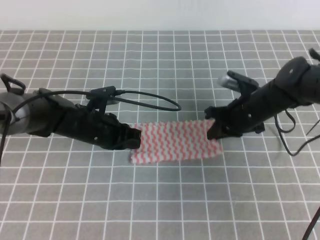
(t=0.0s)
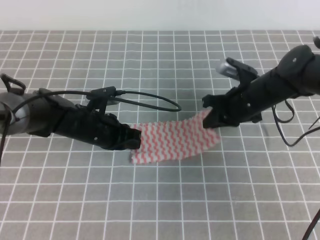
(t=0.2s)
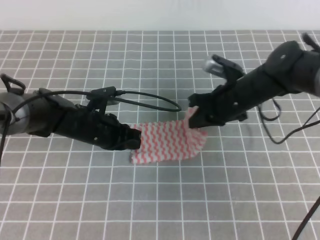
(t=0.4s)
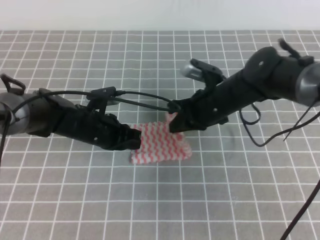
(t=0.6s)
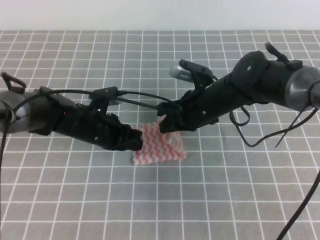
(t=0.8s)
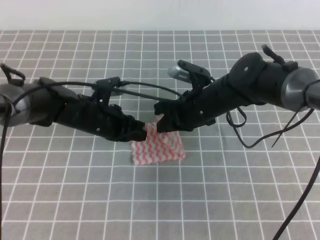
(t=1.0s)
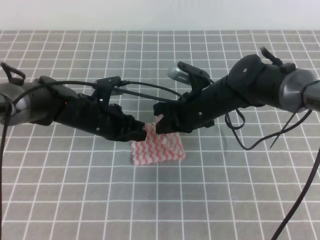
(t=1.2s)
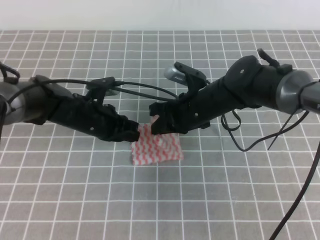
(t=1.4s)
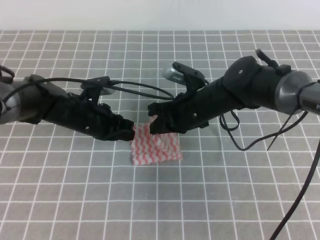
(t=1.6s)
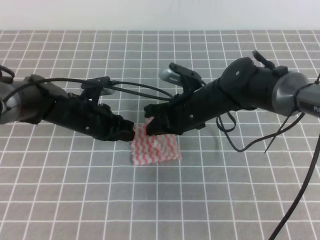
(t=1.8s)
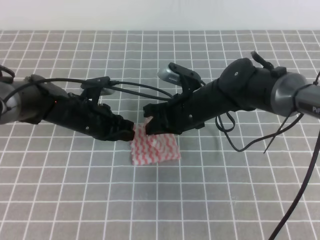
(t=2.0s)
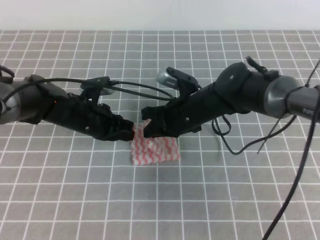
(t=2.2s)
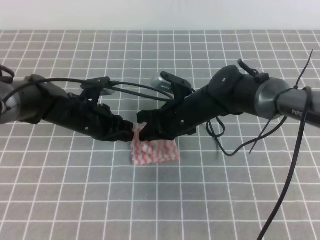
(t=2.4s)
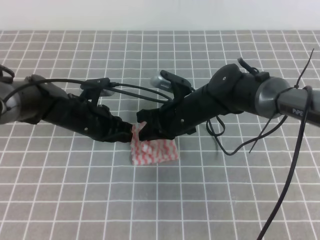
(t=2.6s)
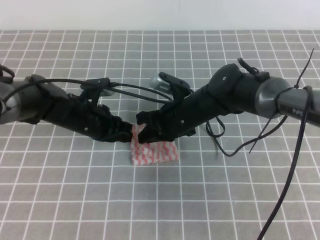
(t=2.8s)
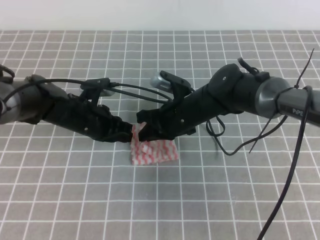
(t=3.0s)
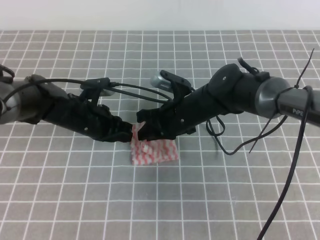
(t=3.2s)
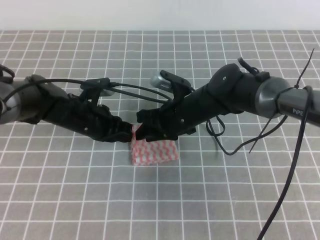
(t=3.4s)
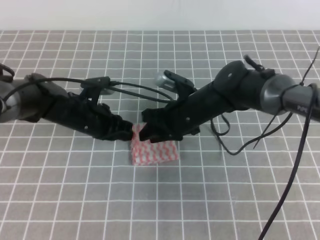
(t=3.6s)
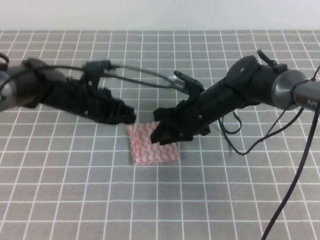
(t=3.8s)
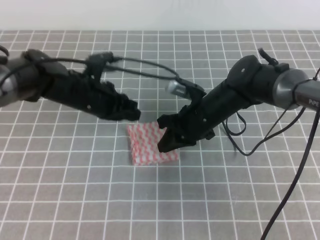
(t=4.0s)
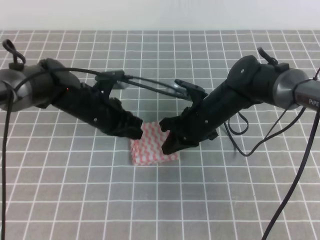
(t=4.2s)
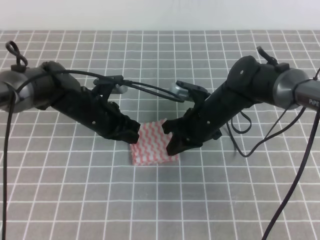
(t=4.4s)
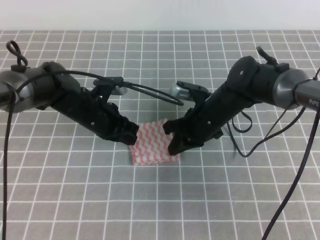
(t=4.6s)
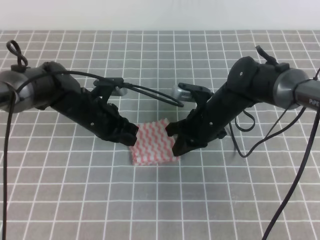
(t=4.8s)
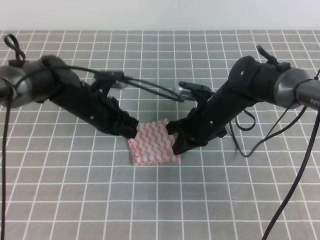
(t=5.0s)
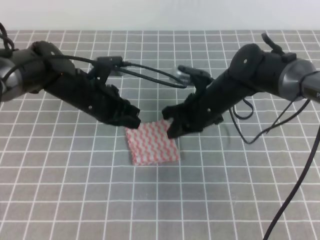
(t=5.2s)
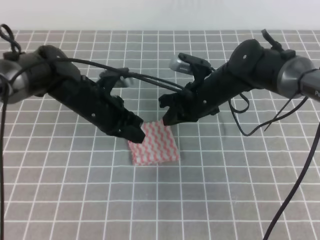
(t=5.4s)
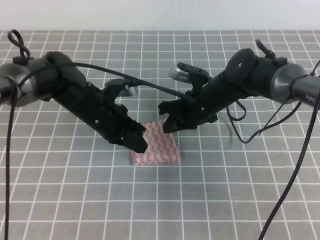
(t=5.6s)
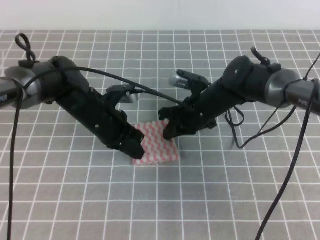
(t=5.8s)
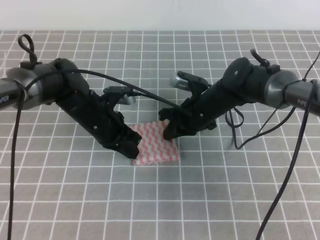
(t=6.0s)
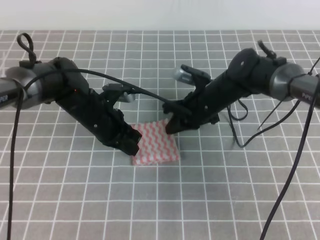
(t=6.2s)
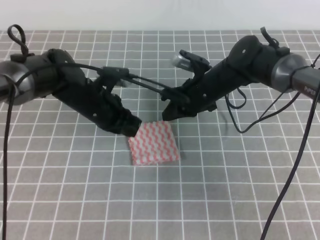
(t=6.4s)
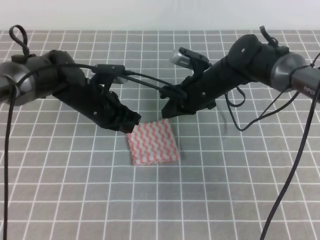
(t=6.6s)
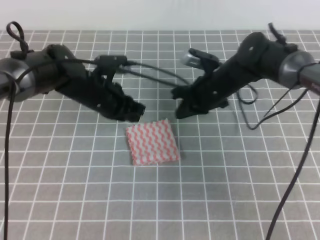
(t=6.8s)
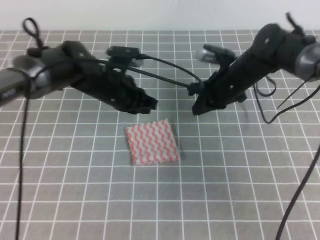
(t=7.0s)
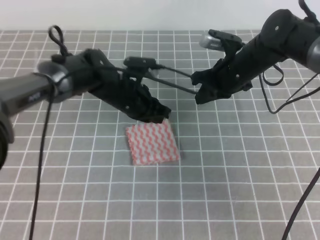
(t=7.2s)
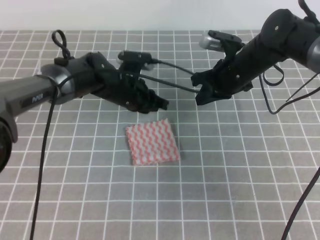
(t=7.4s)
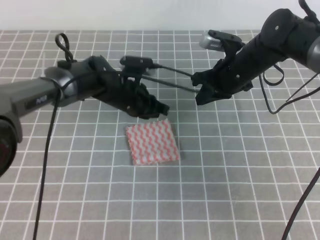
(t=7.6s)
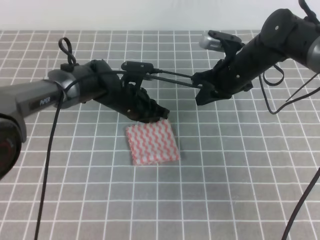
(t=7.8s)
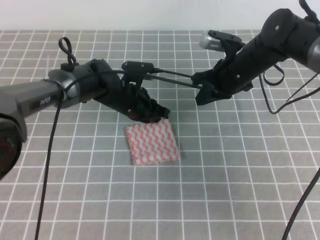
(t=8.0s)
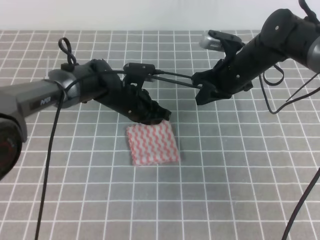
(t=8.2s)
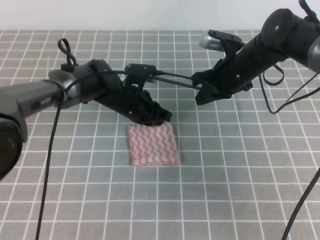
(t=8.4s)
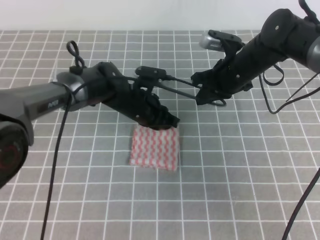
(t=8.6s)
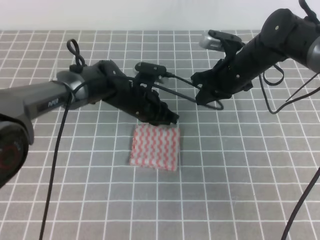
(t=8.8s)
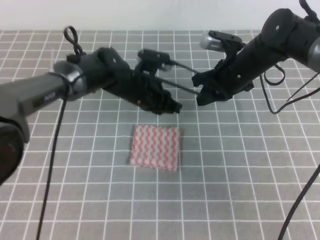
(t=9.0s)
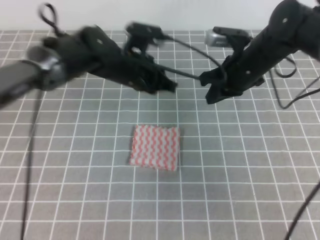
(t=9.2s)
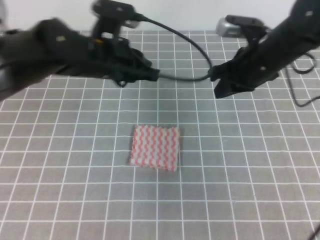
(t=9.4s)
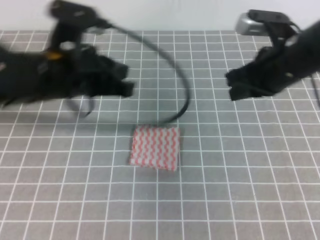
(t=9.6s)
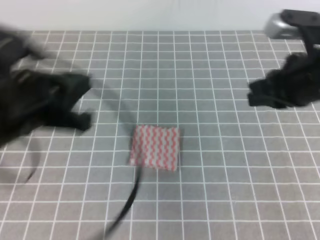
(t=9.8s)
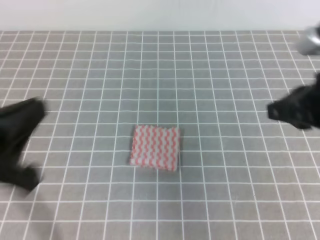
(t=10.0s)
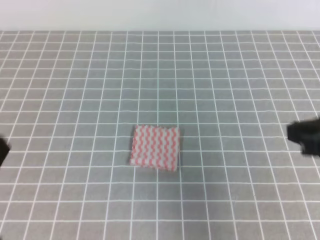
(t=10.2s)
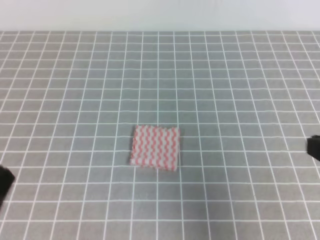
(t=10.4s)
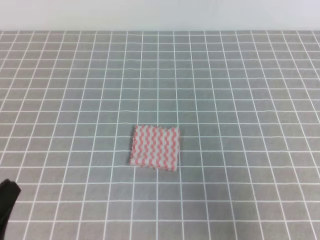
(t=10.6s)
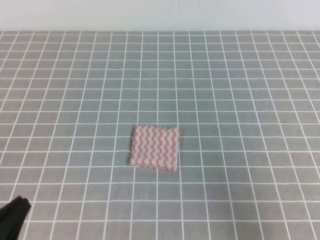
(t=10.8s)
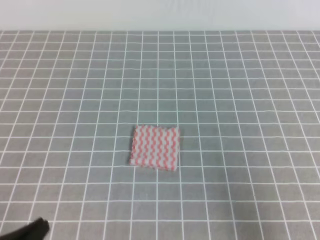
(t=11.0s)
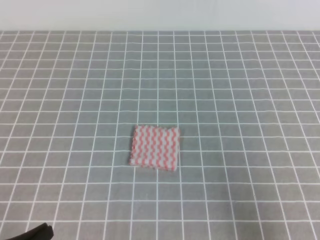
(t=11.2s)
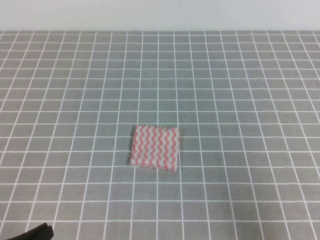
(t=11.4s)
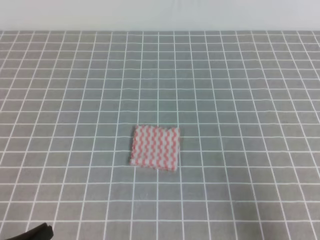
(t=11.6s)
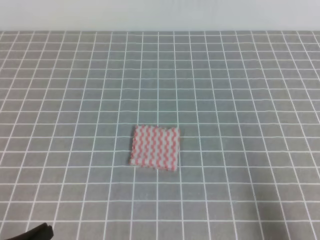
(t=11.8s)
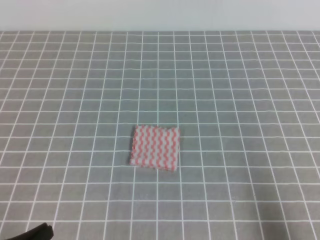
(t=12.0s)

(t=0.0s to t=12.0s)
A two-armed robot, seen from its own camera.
t=0.0s - t=1.6s: The right gripper shifts about 10 cm to the left.
t=1.6s - t=3.0s: The grippers stay close to where they were, moving slightly.
t=3.0s - t=4.4s: The right gripper opens, then closes again.
t=4.4s - t=6.0s: The grippers make only small movements.
t=6.0s - t=7.6s: The right gripper is displaced upward and to the right by roughly 10 cm, while the left gripper is displaced forward and to the right by some 5 cm.
t=7.6s - t=9.0s: The grippers move only a little.
t=9.0s - t=10.4s: The left gripper is displaced backward and to the left by roughly 40 cm, while the right gripper heads backward, covering roughly 30 cm.
t=10.4s - t=12.0s: The right gripper goes some 15 cm downward, backward and to the right. Meanwhile the left gripper shifts approximately 10 cm downward.
